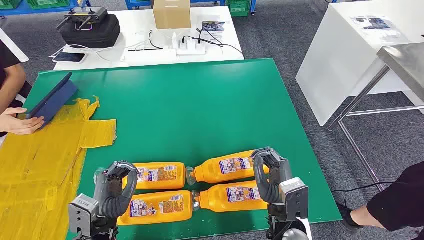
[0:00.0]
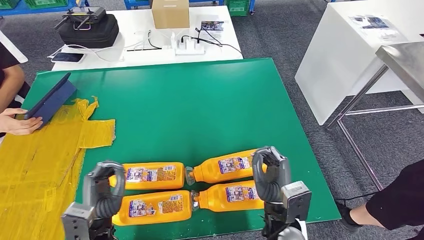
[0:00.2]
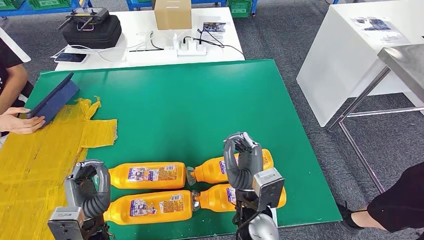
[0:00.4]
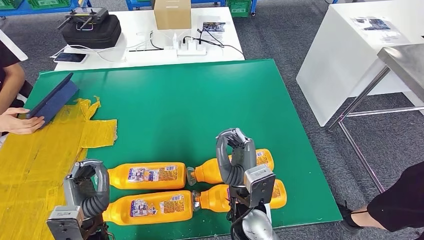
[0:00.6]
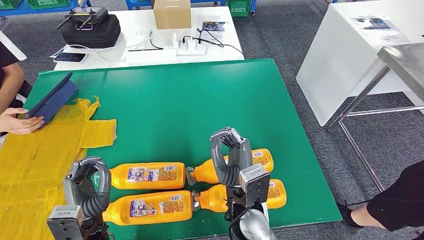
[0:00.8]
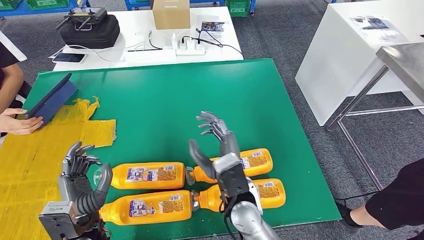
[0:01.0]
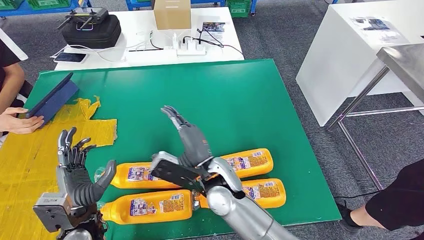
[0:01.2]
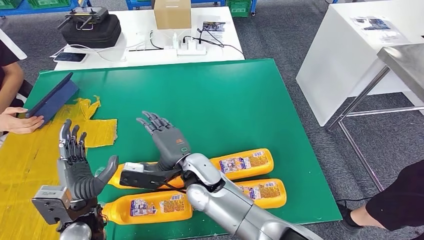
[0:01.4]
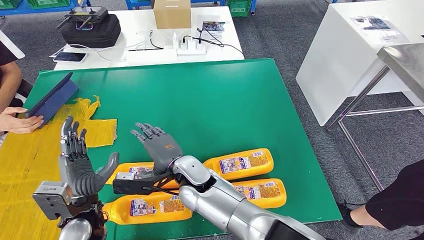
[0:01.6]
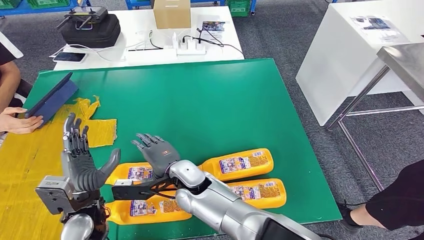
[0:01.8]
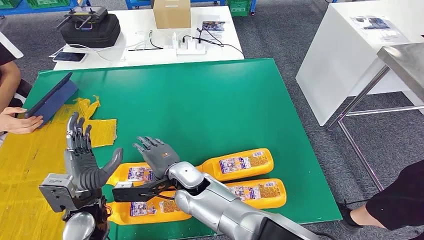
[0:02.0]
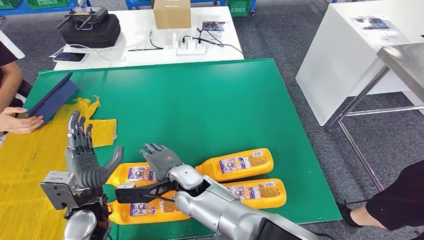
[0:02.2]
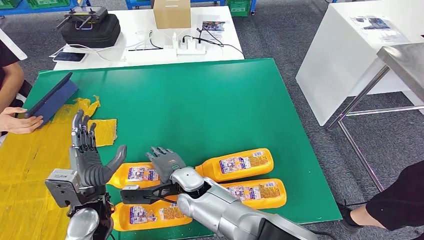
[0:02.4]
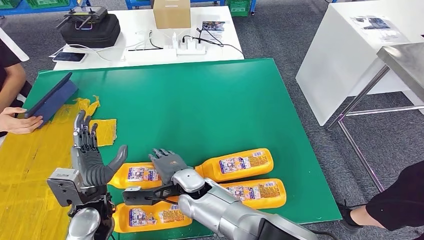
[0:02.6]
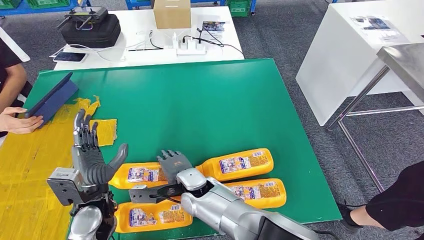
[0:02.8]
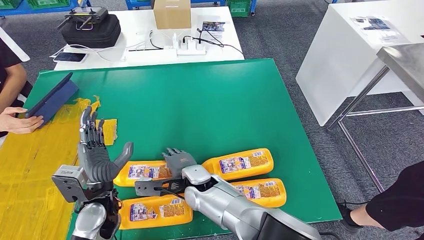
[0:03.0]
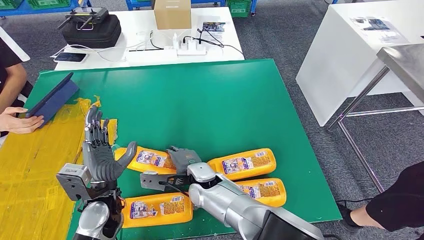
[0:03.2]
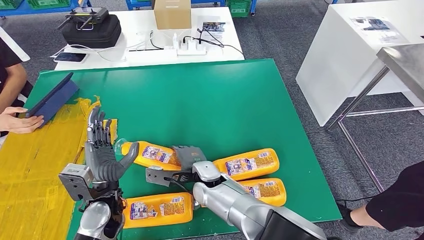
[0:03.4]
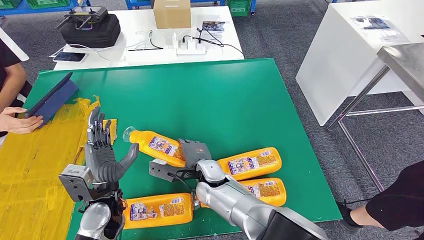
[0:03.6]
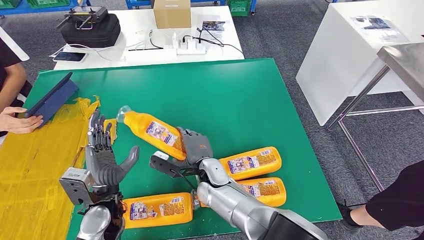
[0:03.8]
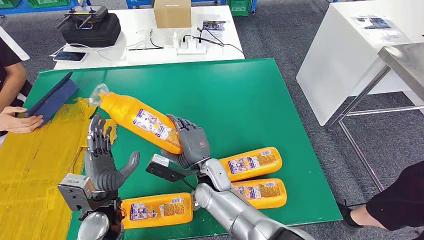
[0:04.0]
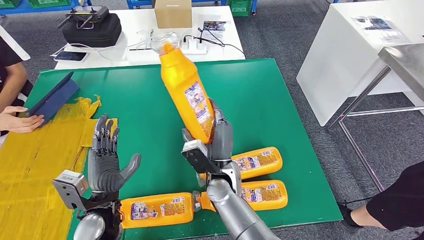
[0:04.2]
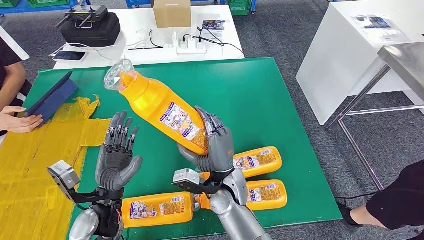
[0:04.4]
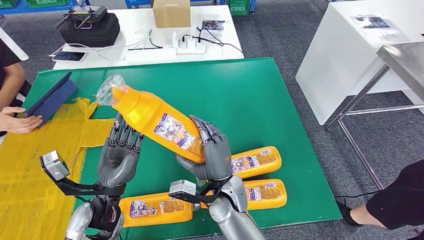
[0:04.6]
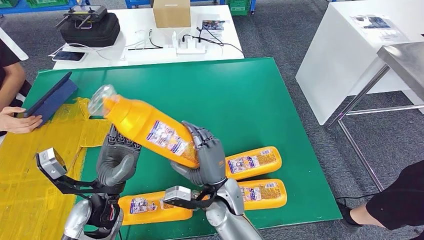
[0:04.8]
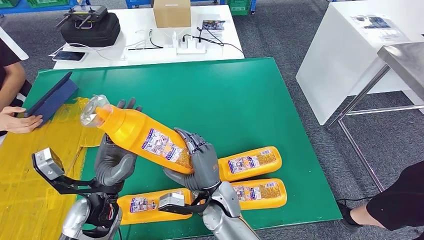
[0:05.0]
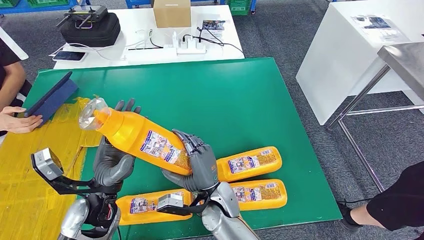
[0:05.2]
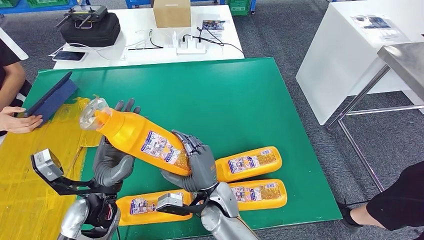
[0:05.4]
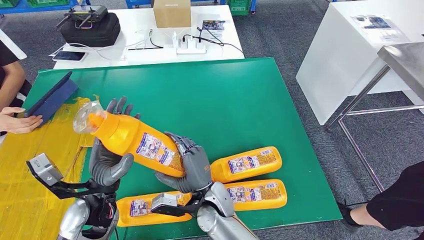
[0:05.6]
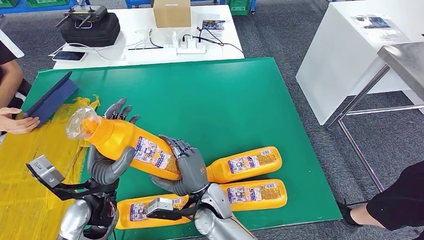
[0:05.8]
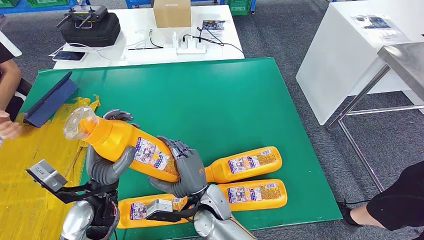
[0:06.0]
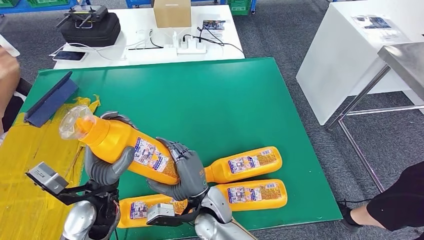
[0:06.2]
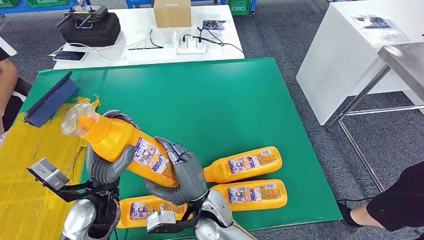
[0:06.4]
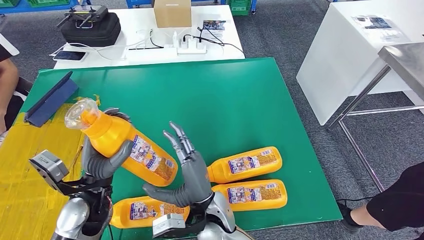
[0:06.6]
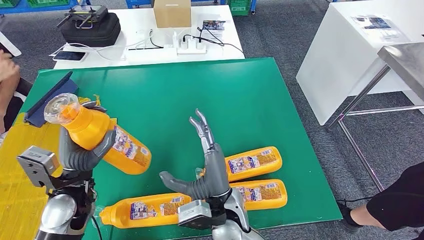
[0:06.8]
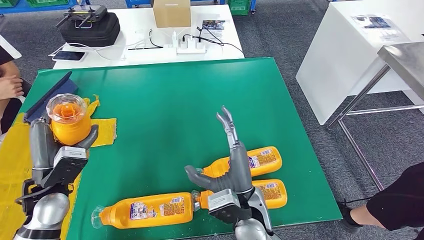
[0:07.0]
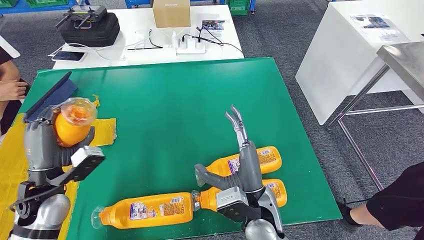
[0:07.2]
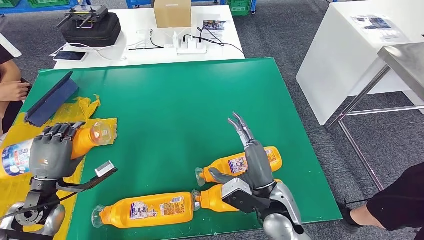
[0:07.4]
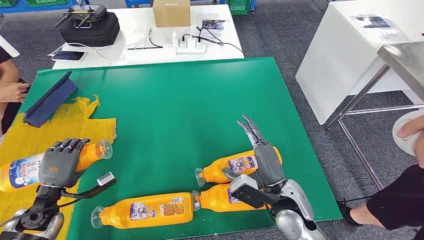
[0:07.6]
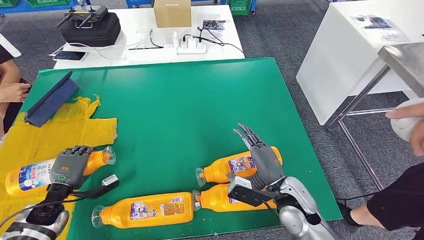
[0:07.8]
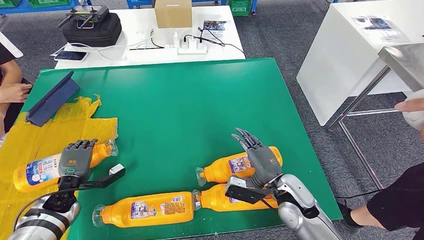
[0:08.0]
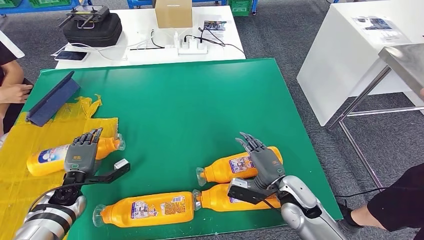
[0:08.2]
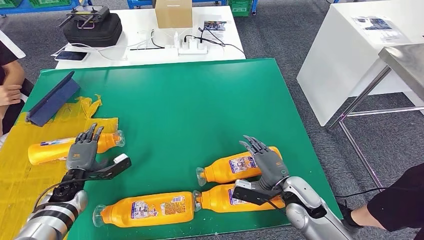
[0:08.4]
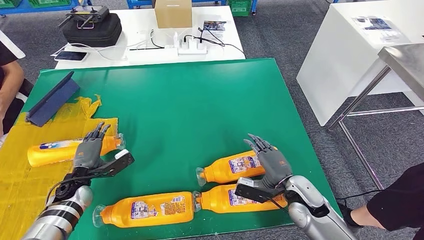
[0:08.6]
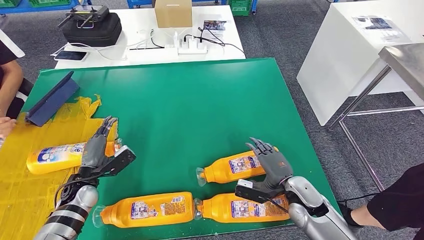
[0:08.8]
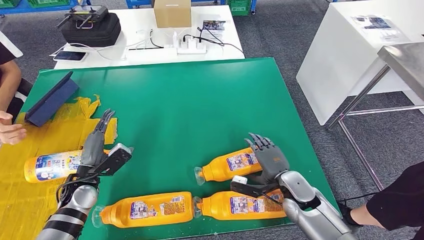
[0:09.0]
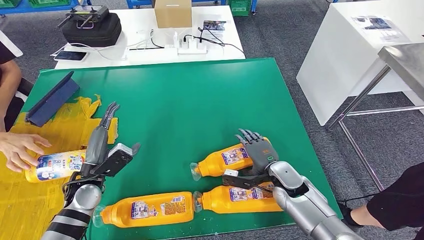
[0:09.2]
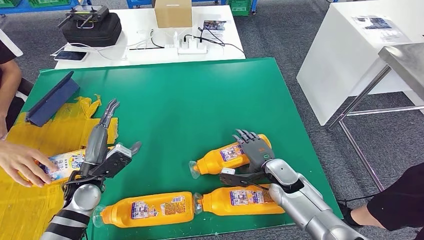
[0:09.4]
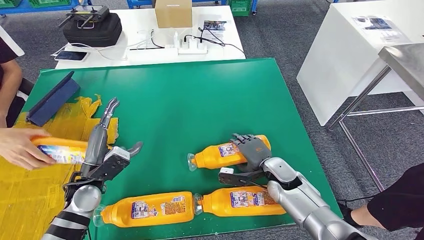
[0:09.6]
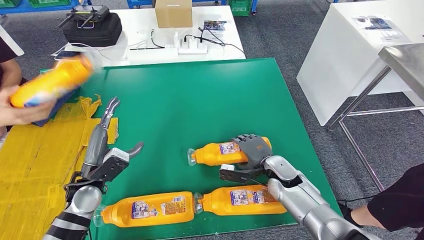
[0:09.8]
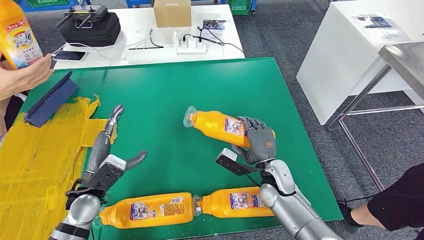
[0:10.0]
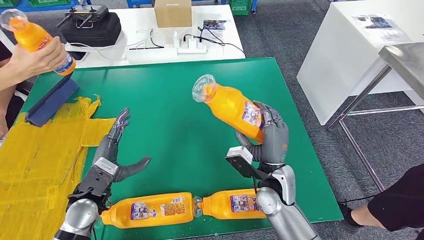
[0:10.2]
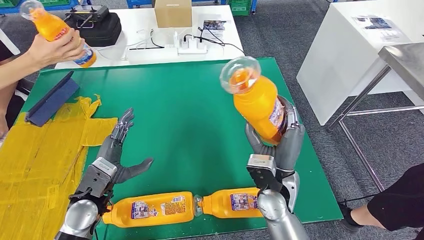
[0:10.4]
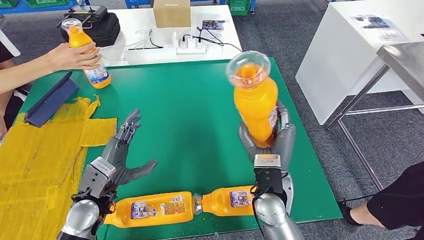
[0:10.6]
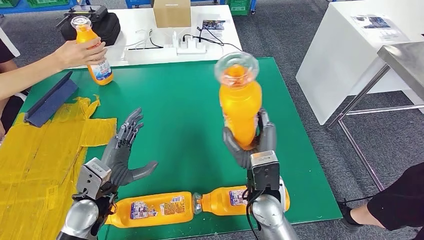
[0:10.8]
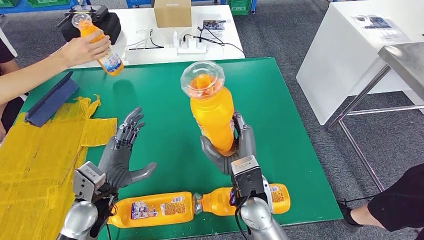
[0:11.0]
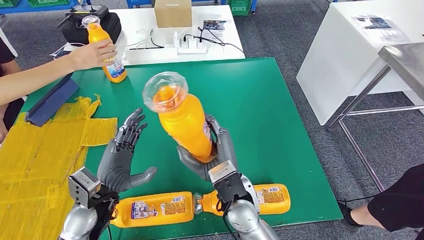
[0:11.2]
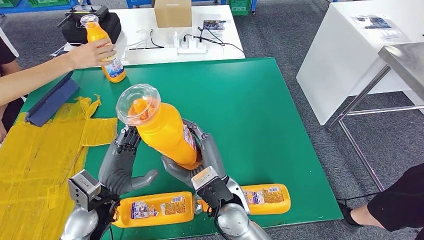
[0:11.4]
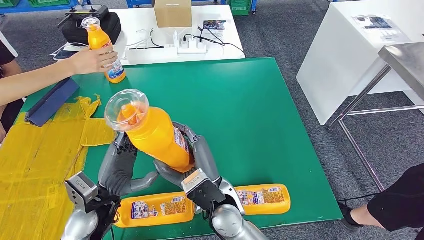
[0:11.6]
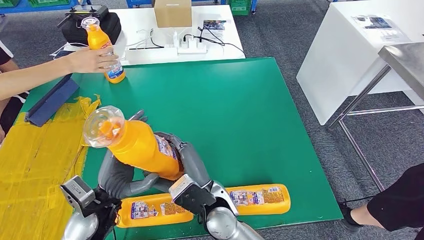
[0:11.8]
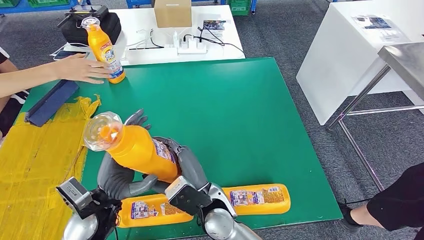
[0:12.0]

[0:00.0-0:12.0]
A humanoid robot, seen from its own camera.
Step, 0:00.0 to 0:04.8: Take the bottle from the table.
Step, 0:05.2 to 0:08.8: Flip the bottle to face forward.
Step, 0:09.0 to 0:11.8: Pick up the bottle from the table.
0:01.6 to 0:03.0: The right hand shifts roughly 5 cm downward.
0:04.4 to 0:06.0: The right hand shifts by approximately 5 cm.

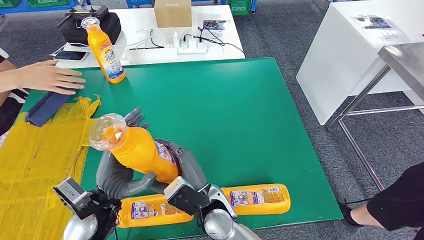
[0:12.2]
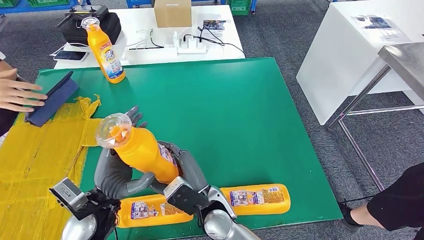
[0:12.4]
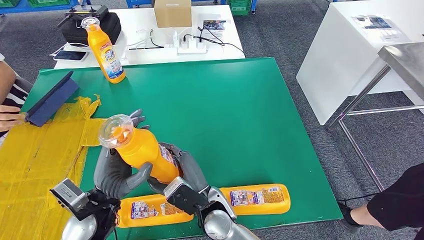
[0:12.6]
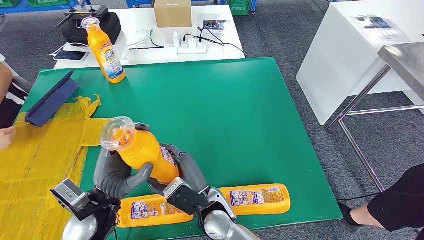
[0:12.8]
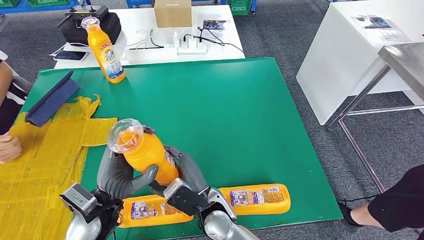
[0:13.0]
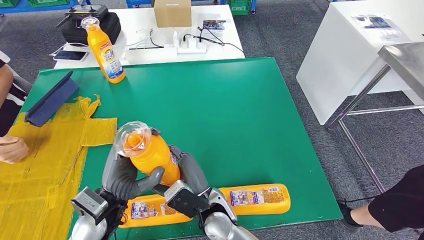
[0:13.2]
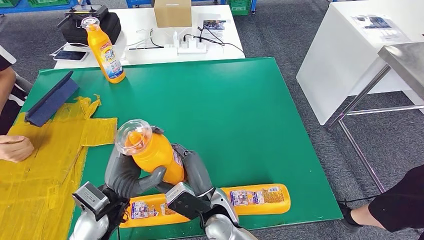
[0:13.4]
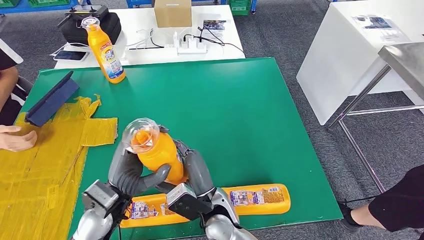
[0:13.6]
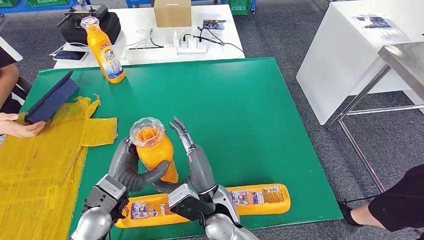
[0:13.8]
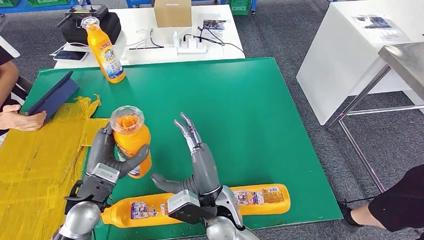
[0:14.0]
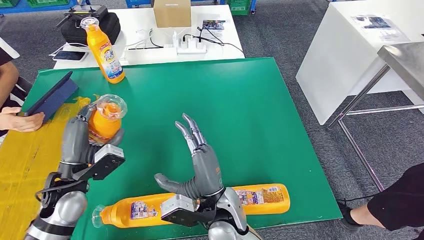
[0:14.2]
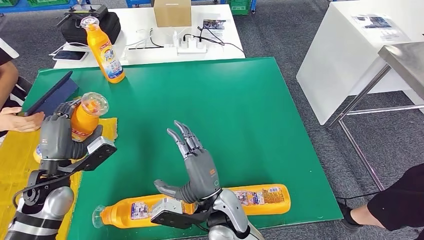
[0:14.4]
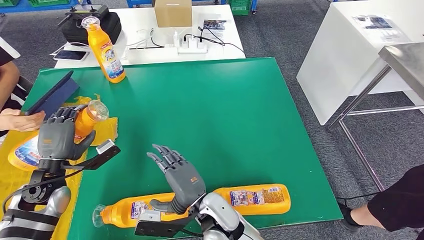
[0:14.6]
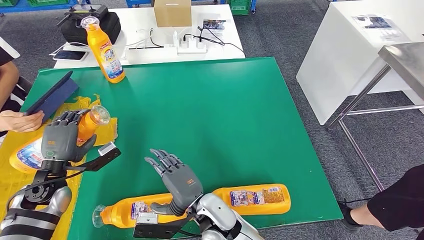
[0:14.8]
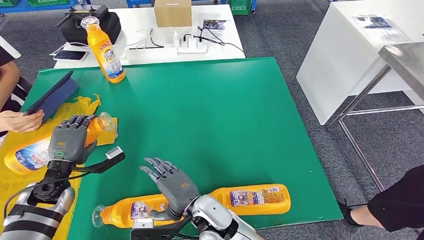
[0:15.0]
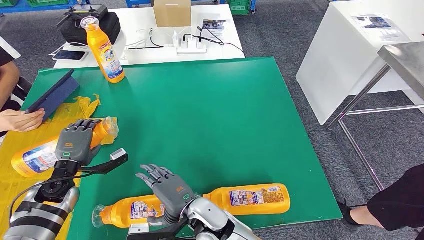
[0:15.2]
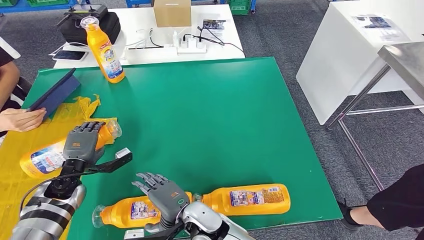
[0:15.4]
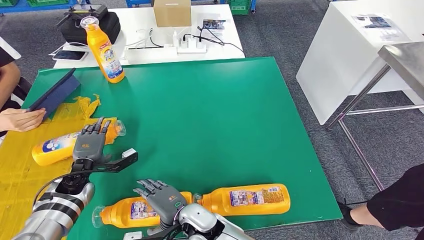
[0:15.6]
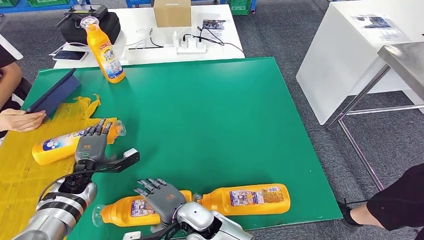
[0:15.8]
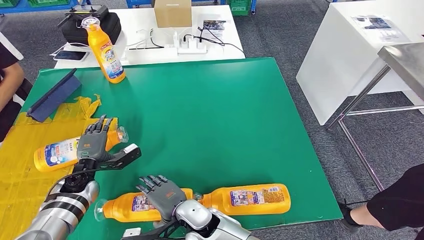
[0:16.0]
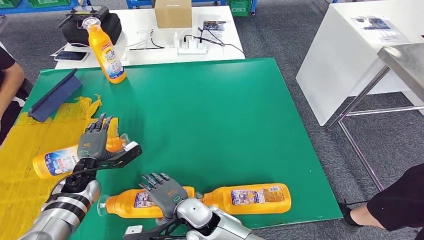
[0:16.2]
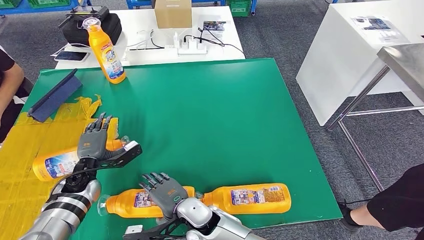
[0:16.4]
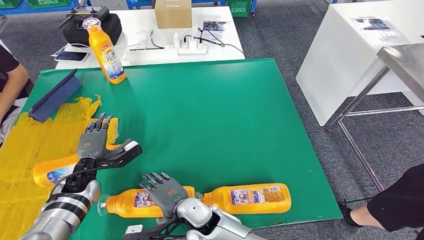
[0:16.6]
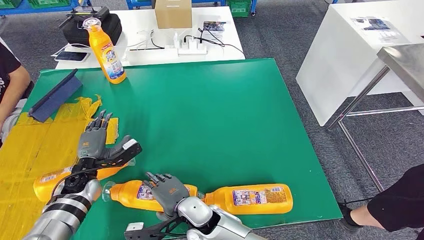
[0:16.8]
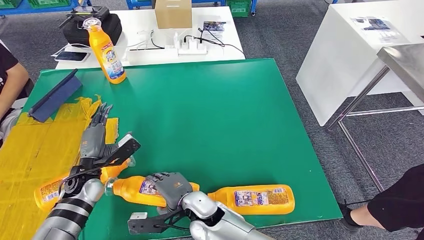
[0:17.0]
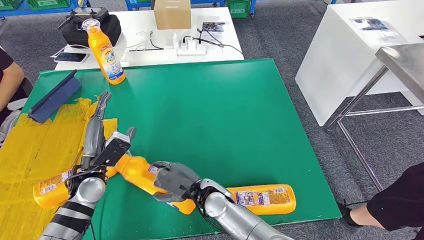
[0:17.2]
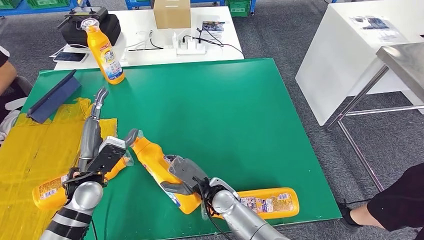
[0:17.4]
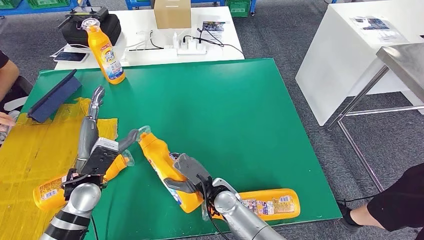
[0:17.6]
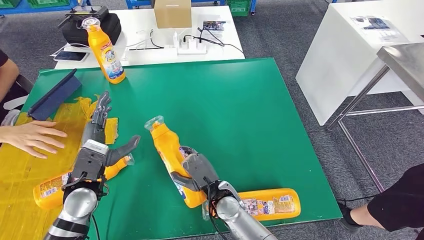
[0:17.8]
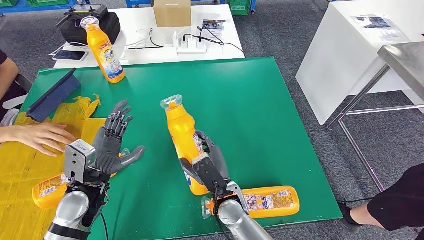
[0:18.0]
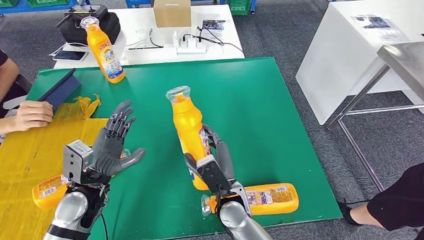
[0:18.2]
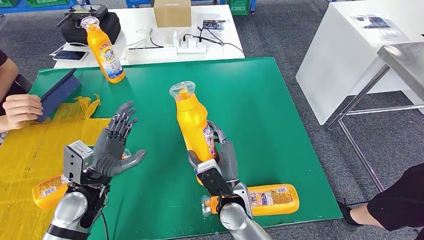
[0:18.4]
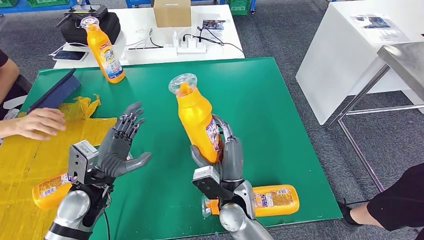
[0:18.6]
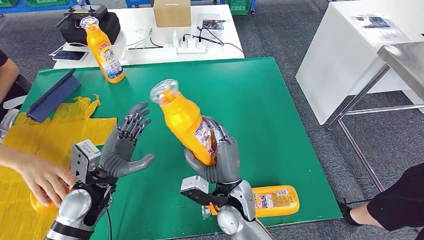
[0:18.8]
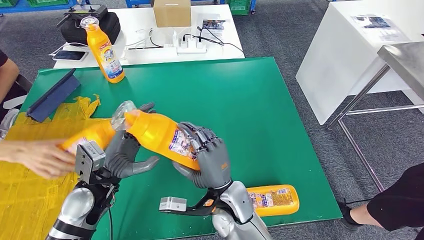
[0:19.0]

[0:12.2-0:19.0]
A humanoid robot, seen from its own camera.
Step, 0:12.2 to 0:15.4: Flip the bottle to face forward.
0:12.2 to 0:13.6: The hands move only a little.
0:13.6 to 0:15.0: The left hand heads to the left and forward, covering some 20 cm.
